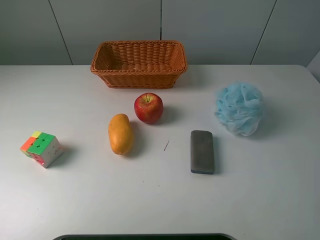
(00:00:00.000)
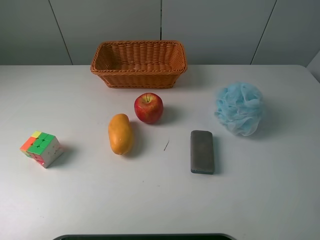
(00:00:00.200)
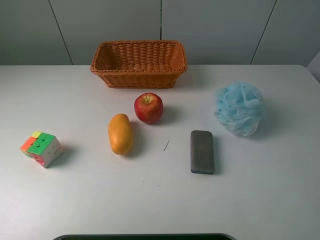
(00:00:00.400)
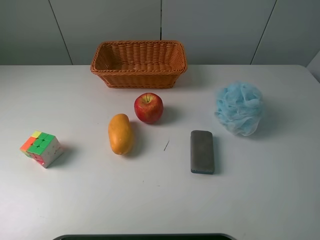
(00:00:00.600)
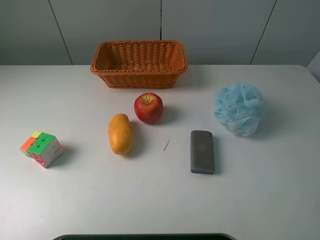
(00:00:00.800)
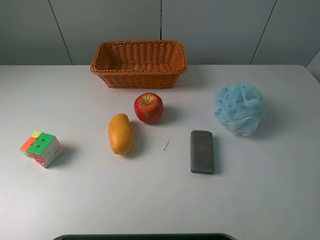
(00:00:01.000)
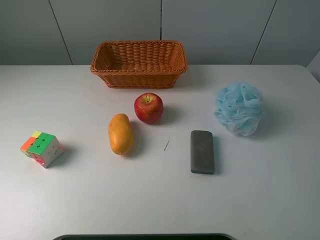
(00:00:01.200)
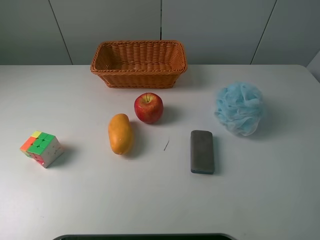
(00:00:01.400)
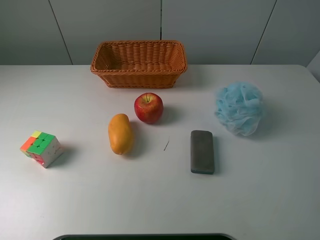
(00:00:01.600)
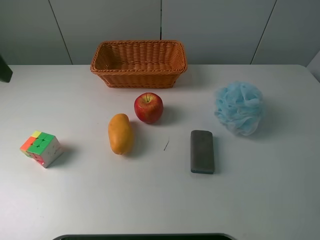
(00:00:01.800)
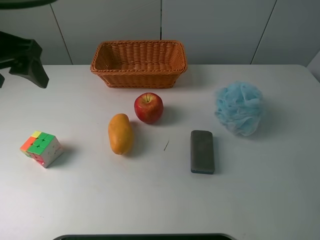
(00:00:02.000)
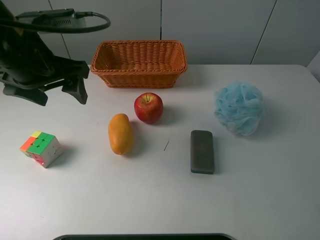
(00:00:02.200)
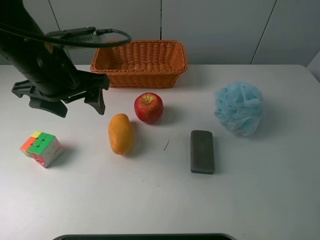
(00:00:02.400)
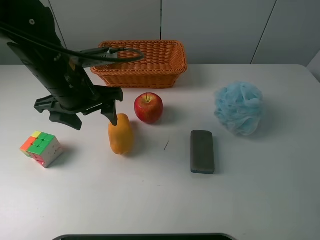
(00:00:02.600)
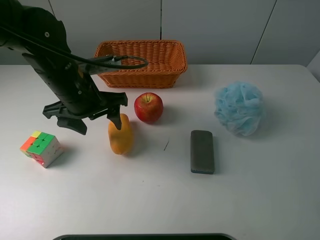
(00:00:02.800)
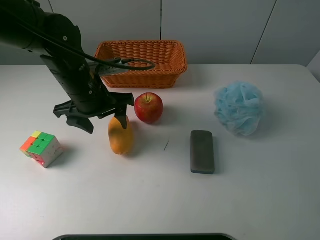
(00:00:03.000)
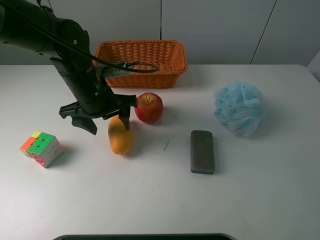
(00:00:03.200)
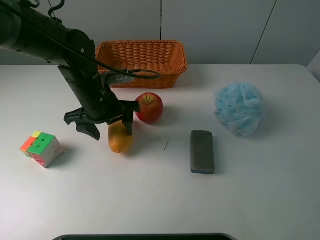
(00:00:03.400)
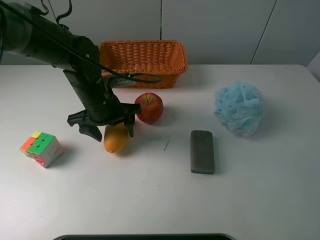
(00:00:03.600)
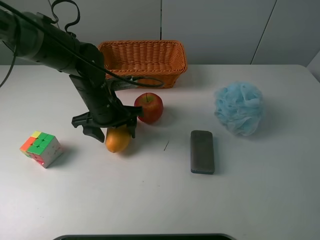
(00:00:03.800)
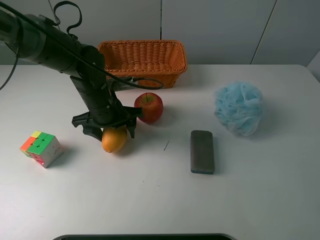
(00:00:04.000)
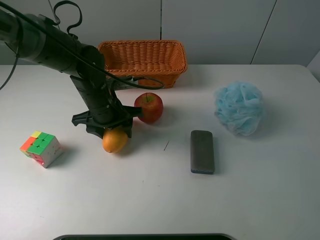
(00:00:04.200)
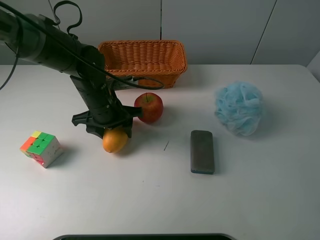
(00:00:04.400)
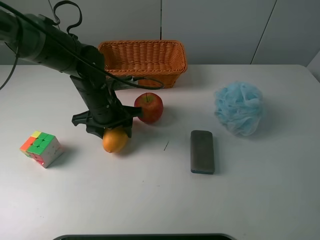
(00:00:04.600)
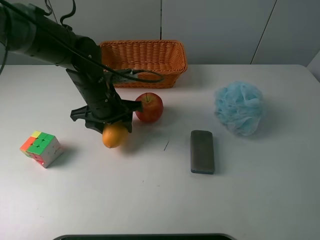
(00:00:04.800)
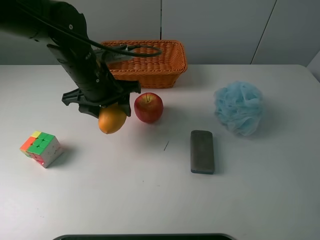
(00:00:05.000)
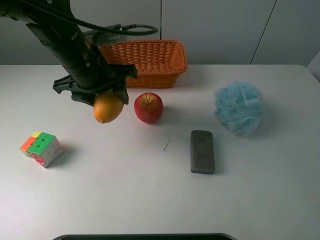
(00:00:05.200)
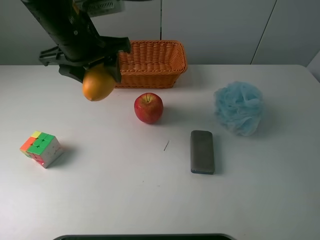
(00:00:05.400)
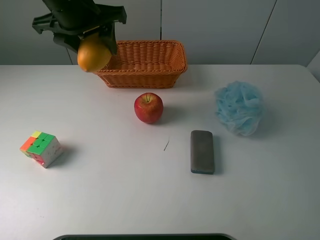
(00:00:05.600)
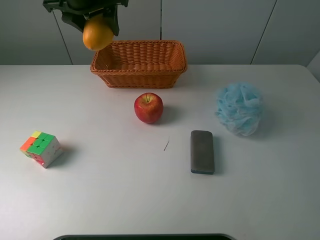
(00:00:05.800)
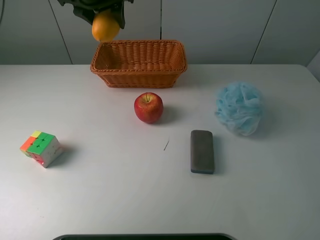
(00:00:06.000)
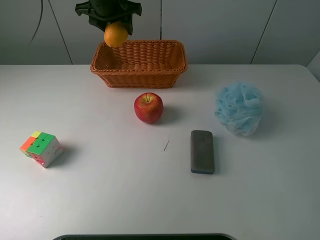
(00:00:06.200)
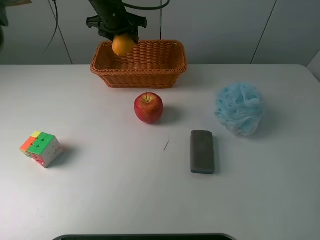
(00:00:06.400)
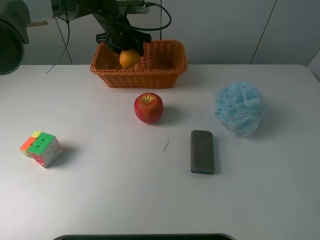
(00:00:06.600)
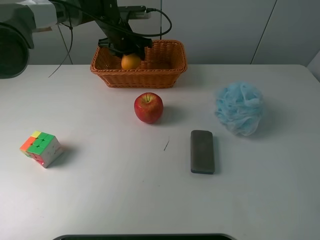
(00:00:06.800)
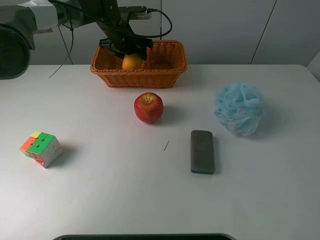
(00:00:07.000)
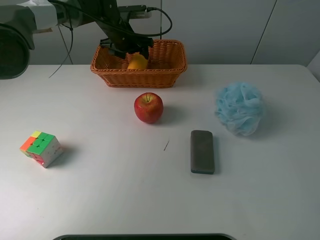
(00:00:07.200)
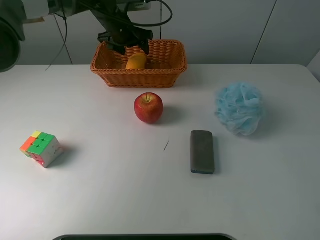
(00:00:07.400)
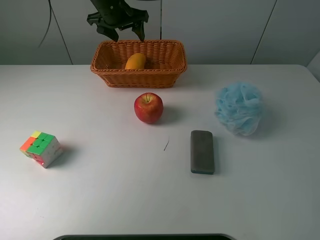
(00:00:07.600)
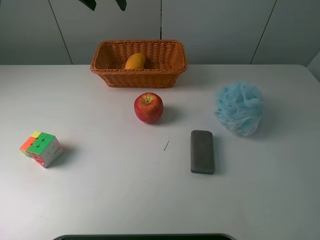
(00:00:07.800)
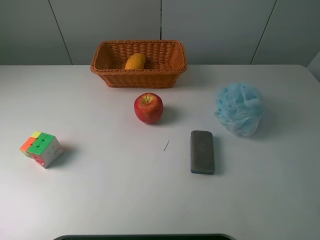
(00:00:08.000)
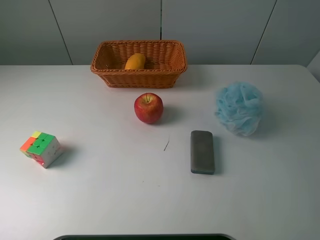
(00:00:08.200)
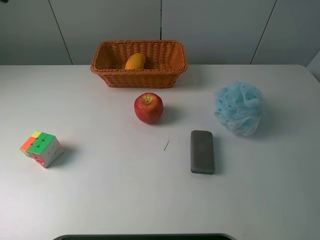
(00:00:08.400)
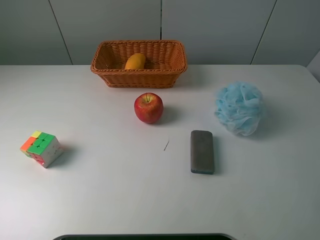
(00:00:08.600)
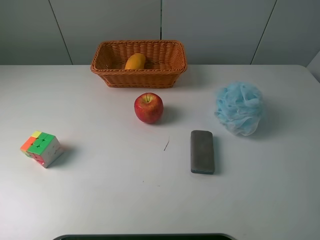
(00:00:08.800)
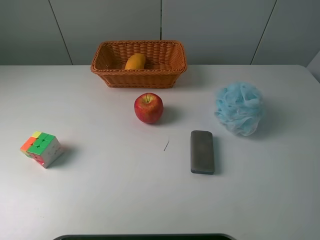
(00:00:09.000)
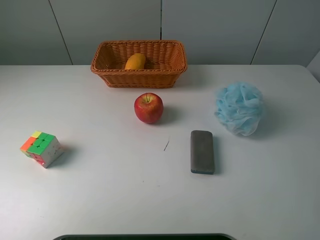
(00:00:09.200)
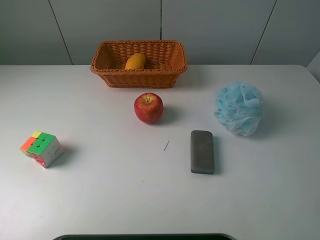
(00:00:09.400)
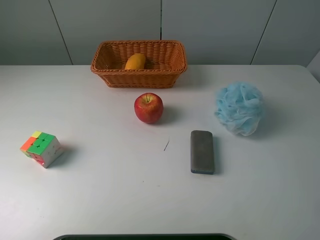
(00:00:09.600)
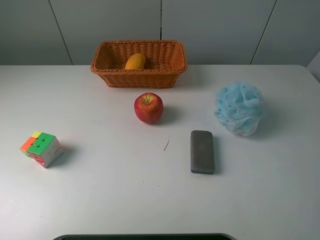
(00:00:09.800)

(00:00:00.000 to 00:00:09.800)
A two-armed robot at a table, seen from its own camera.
Task of the whole recording: use a picker to grab the item closest to the apple and place it in the basket.
Step, 00:00:00.000 - 00:00:04.400: Grasp the mango with the left gripper.
Step, 00:00:04.600 - 00:00:07.600: Place the mango into the basket with the left gripper.
00:00:01.400 - 00:00:02.800: The left gripper travels to the right, downward and forward by approximately 30 cm.
00:00:02.800 - 00:00:04.200: The left gripper moves downward, roughly 5 cm, and closes.
00:00:04.200 - 00:00:05.600: The left gripper shifts some 20 cm upward.
00:00:05.600 - 00:00:07.000: The left gripper travels forward and downward by approximately 25 cm, and opens.
00:00:07.000 - 00:00:08.400: The left gripper heads backward, upward and to the left, covering some 40 cm.

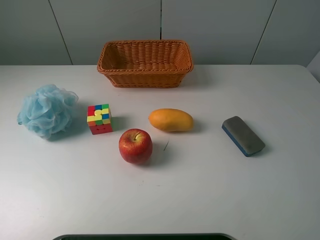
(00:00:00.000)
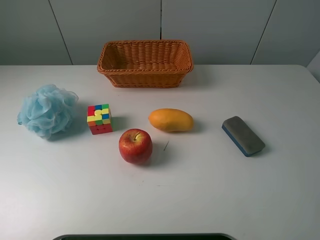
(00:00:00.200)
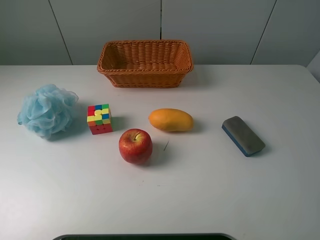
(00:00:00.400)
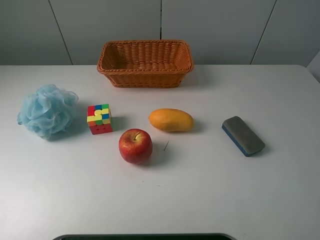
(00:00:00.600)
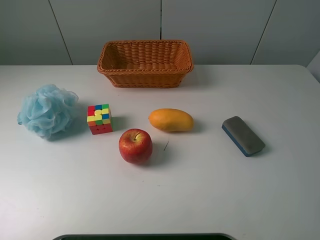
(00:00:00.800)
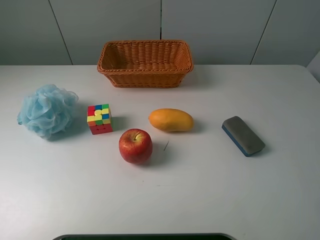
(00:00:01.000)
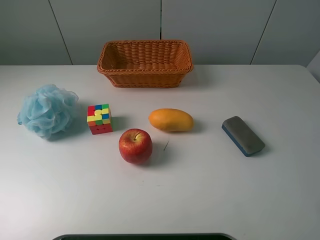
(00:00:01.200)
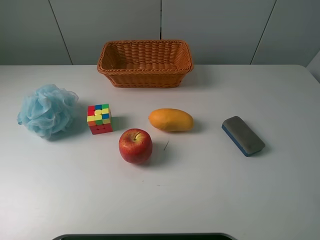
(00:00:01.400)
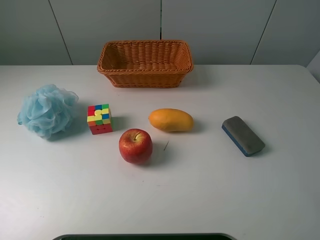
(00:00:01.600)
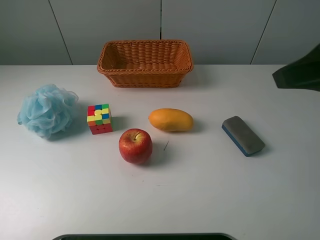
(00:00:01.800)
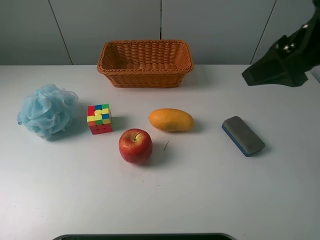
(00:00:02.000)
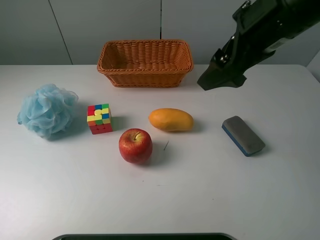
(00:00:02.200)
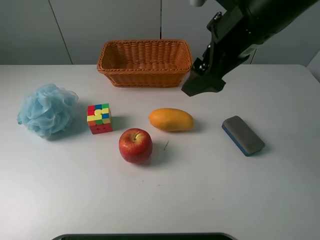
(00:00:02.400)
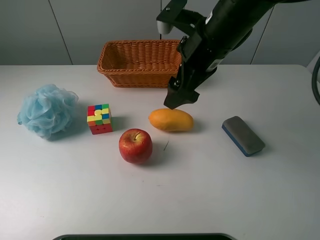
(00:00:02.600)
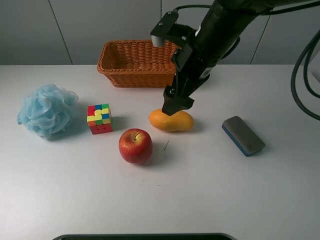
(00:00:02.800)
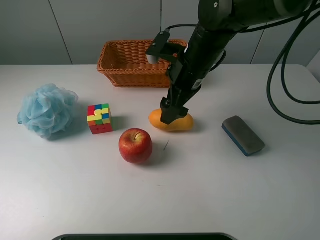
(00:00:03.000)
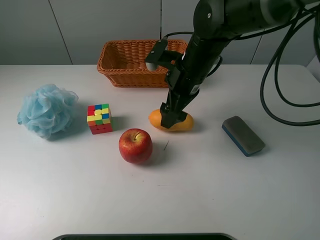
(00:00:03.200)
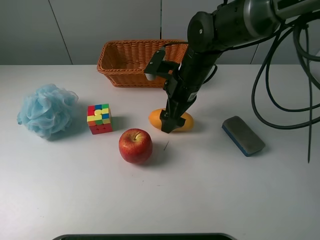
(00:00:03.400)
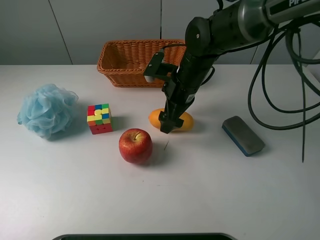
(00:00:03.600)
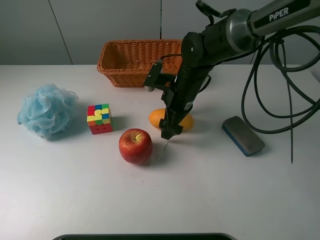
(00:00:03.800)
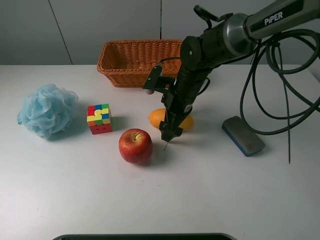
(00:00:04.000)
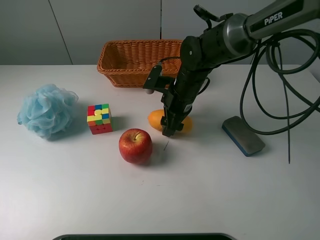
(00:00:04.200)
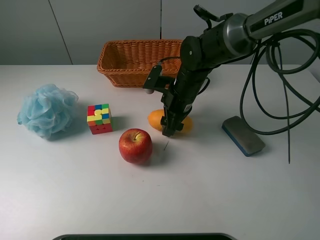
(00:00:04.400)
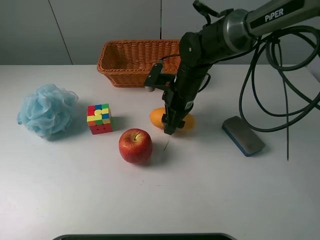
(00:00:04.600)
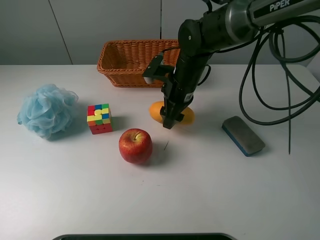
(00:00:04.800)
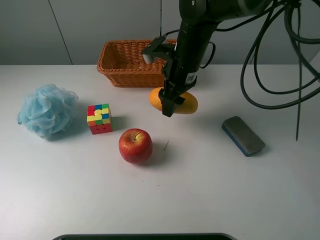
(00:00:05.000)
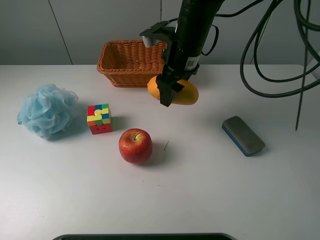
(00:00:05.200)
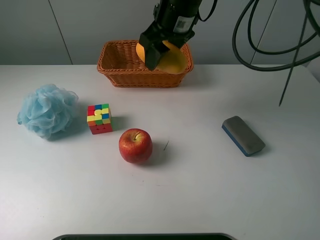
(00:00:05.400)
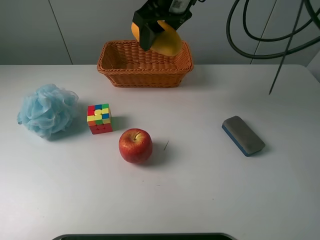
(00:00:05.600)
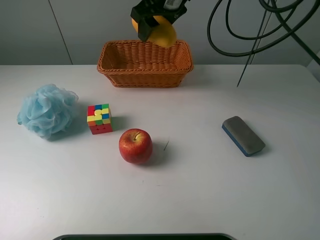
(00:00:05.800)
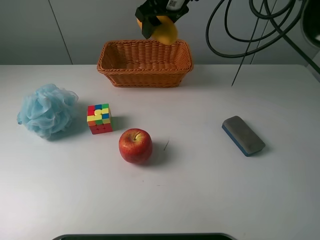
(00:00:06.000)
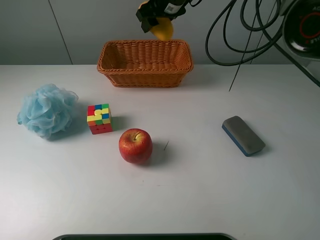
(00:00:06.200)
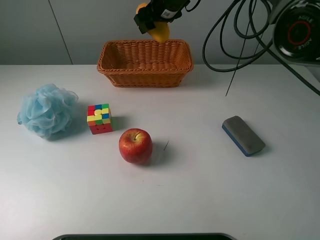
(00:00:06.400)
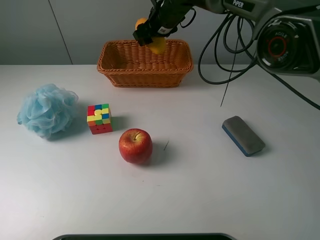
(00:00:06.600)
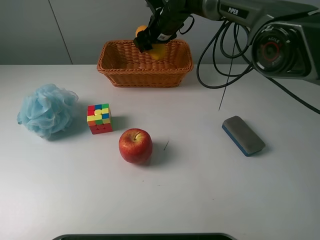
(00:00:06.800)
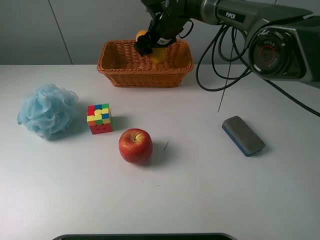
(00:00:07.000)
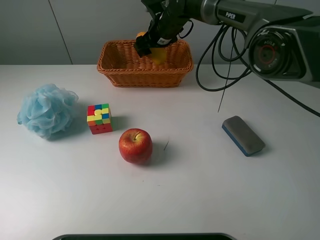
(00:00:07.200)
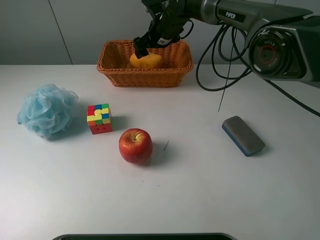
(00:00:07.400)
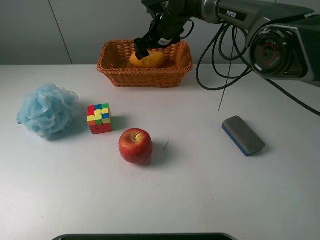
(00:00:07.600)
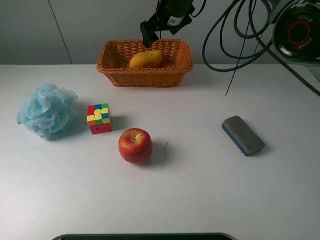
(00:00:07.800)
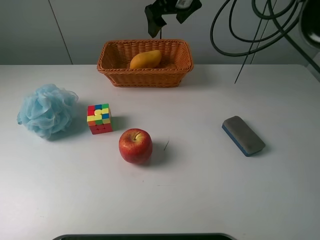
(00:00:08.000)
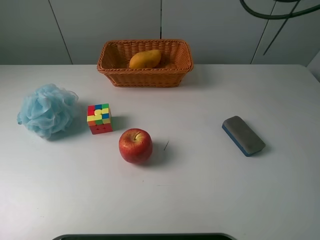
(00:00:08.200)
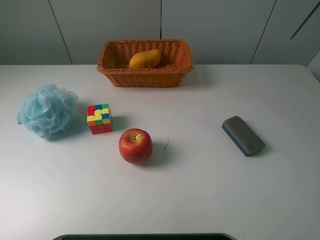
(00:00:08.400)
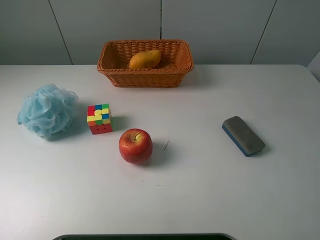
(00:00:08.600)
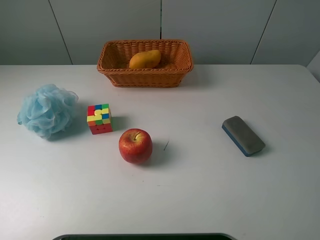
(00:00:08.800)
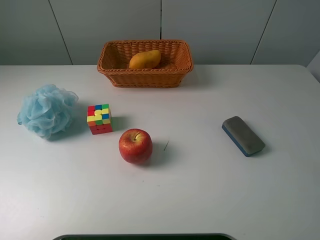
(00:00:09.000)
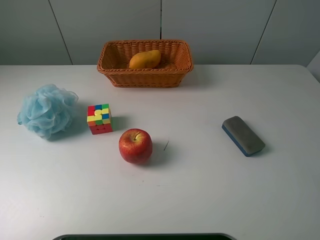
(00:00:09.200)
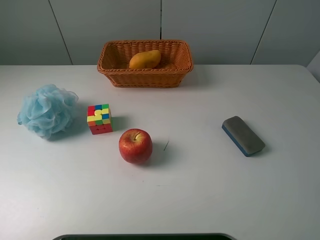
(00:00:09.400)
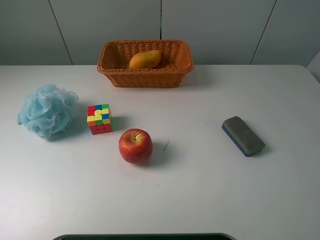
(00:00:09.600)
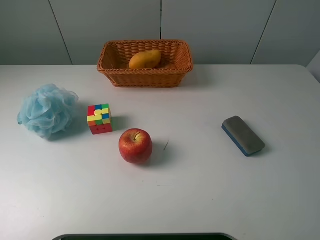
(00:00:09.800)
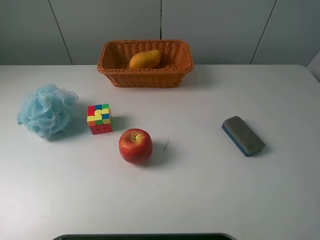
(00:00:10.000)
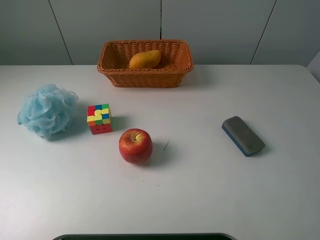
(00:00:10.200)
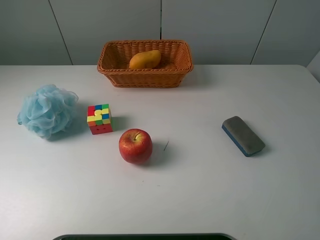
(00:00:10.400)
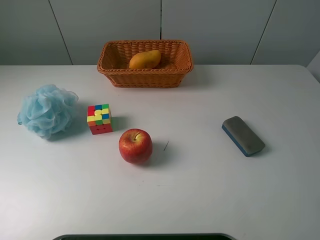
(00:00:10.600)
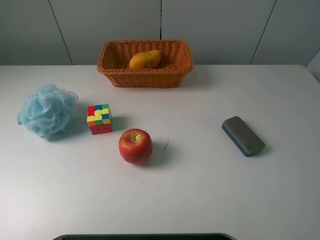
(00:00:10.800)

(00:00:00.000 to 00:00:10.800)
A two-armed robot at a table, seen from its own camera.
Task of the whole recording: use a picker to grab the item closest to the apple and place it in the basket.
Step, 00:00:00.000 - 00:00:04.400: Grasp the mango with the right gripper.
Step, 00:00:04.600 - 00:00:07.800: Place the mango into the basket with the right gripper.
00:00:01.600 - 00:00:03.000: The right gripper heads forward, to the left and downward, covering roughly 35 cm.
00:00:03.000 - 00:00:04.600: The right gripper moves downward, some 10 cm, and closes its fingers.
00:00:04.600 - 00:00:06.200: The right gripper goes roughly 20 cm upward and forward.
00:00:06.200 - 00:00:07.800: The right gripper travels downward by roughly 5 cm, and opens its fingers.
00:00:07.800 - 00:00:09.200: The right gripper is displaced backward, upward and to the right by some 50 cm.
